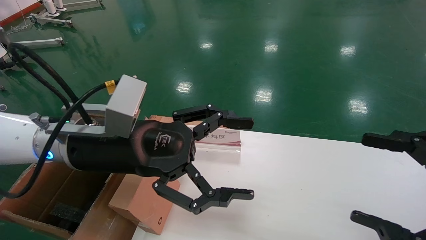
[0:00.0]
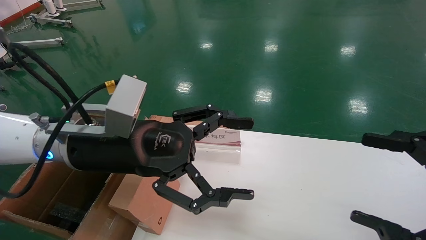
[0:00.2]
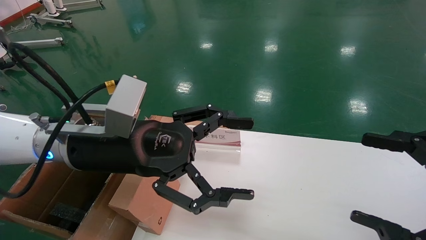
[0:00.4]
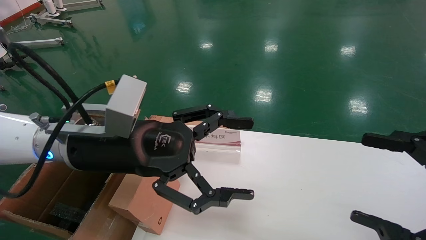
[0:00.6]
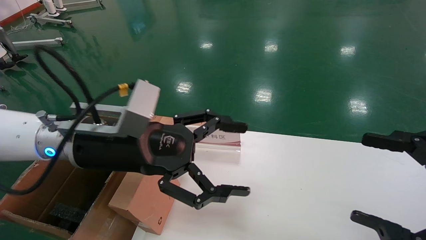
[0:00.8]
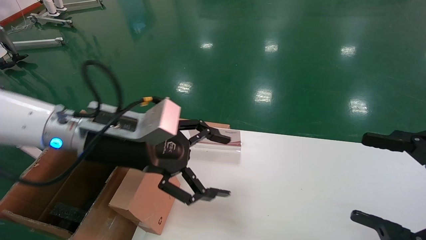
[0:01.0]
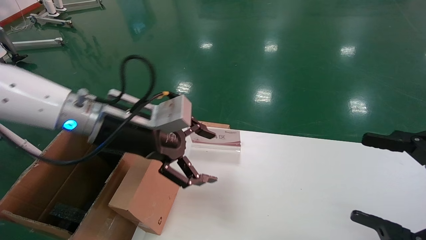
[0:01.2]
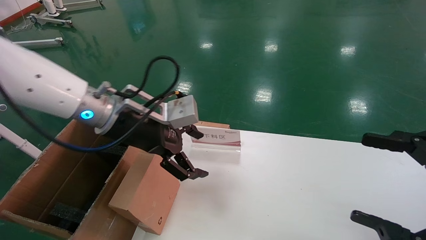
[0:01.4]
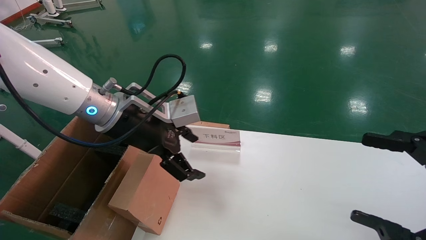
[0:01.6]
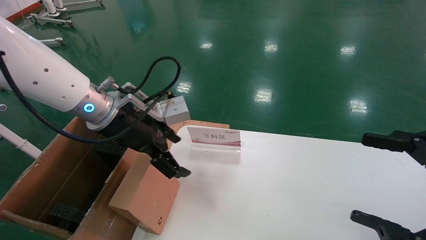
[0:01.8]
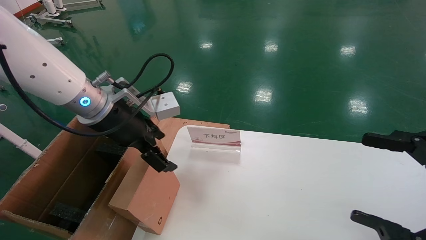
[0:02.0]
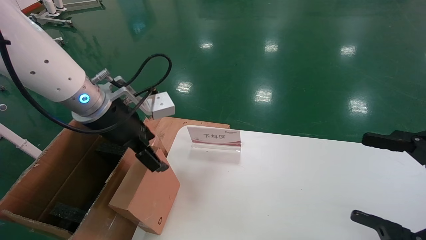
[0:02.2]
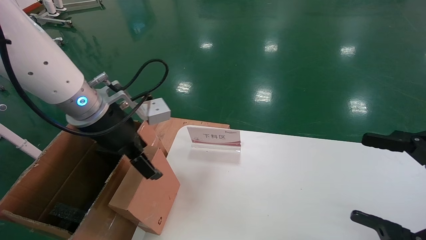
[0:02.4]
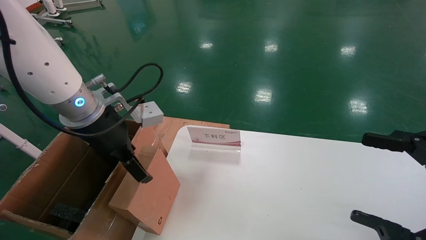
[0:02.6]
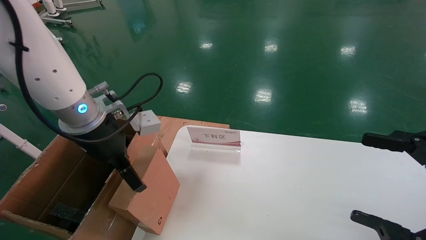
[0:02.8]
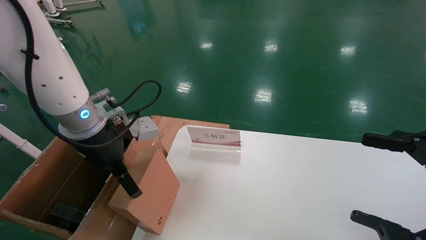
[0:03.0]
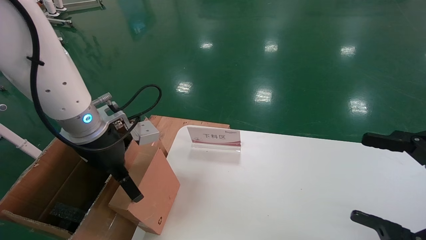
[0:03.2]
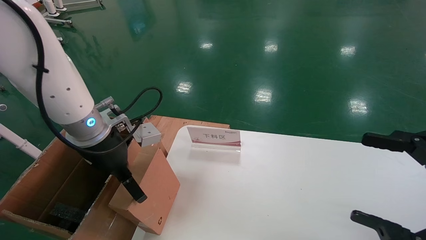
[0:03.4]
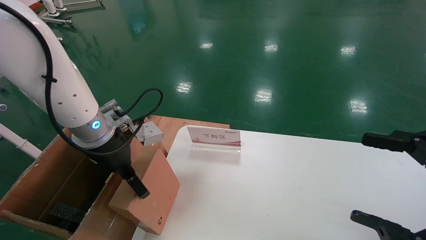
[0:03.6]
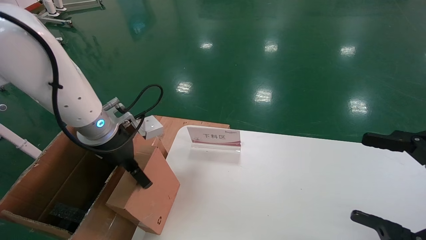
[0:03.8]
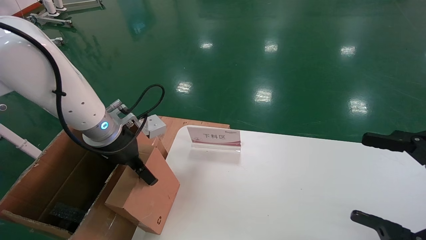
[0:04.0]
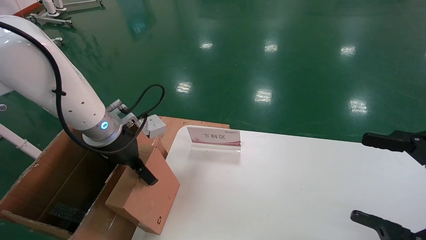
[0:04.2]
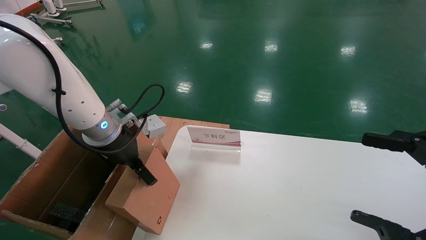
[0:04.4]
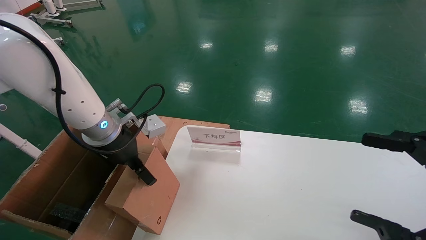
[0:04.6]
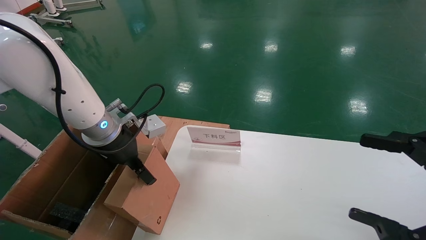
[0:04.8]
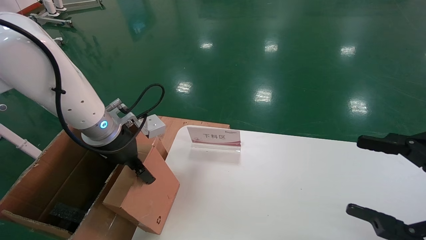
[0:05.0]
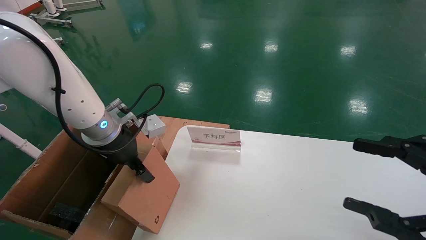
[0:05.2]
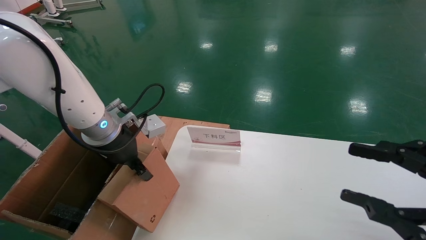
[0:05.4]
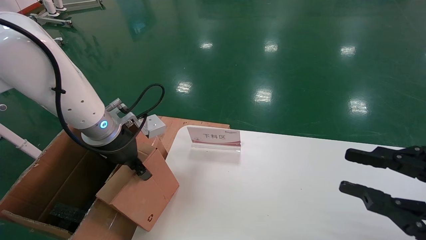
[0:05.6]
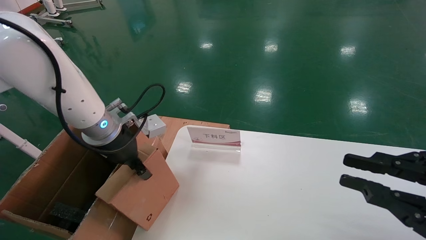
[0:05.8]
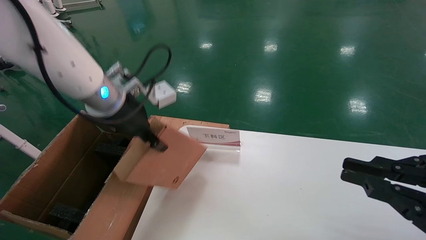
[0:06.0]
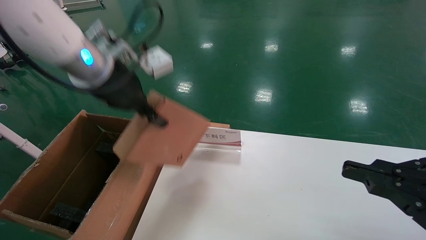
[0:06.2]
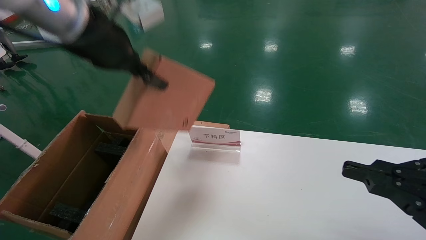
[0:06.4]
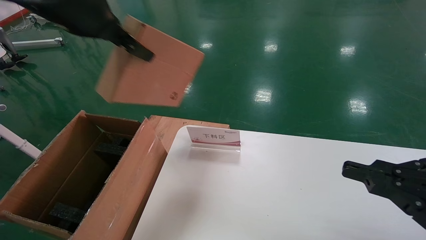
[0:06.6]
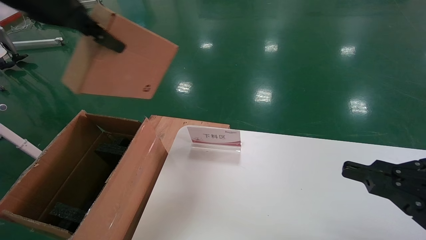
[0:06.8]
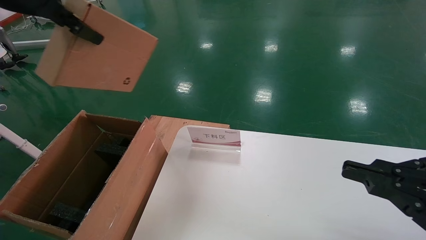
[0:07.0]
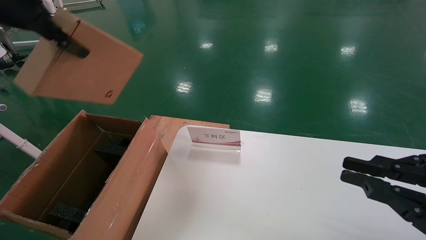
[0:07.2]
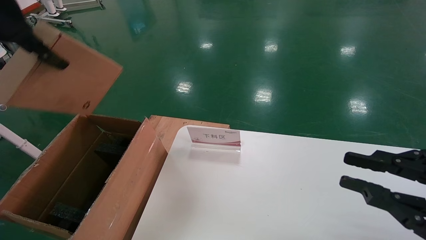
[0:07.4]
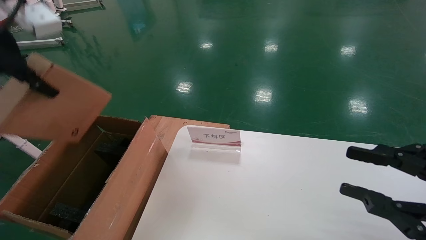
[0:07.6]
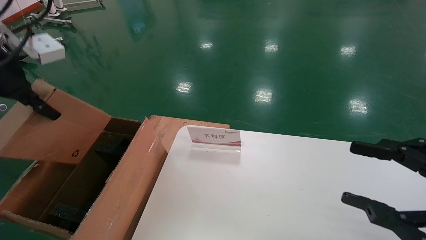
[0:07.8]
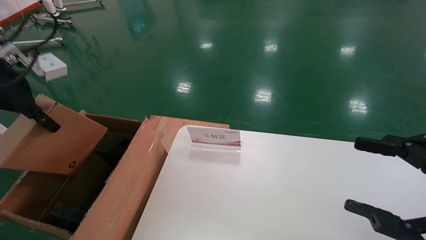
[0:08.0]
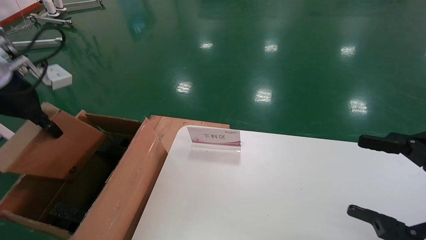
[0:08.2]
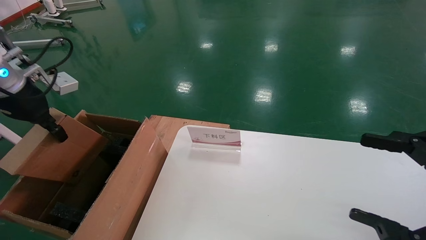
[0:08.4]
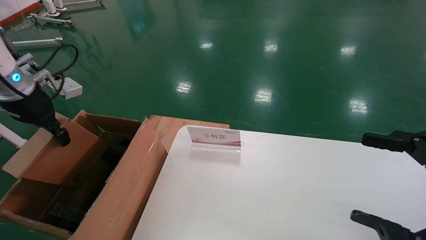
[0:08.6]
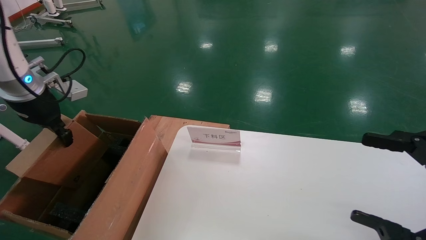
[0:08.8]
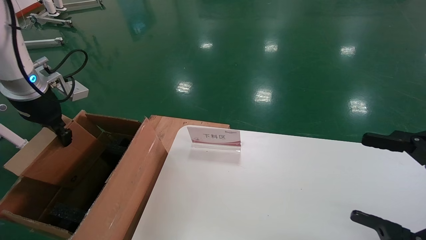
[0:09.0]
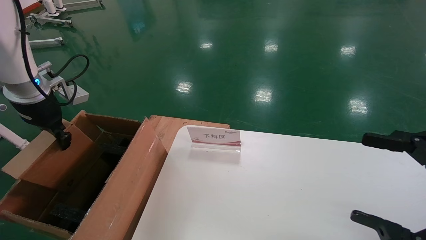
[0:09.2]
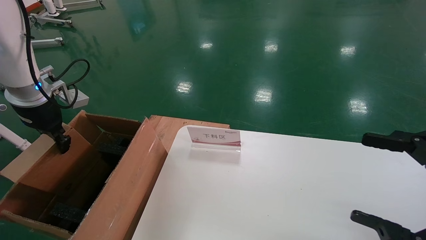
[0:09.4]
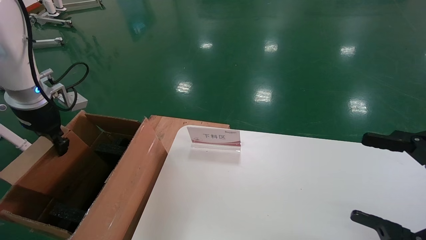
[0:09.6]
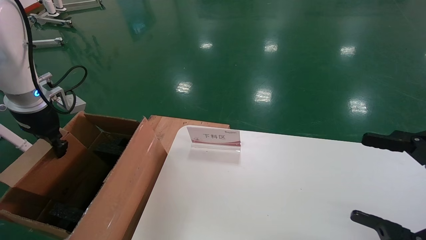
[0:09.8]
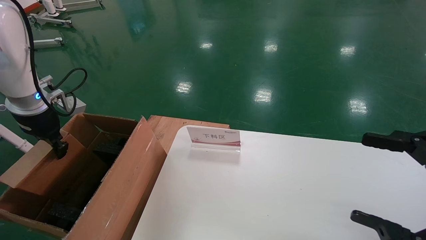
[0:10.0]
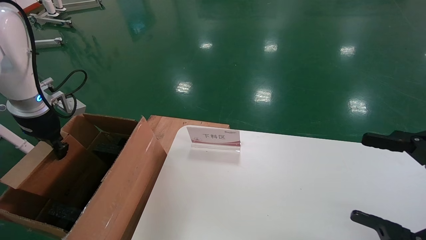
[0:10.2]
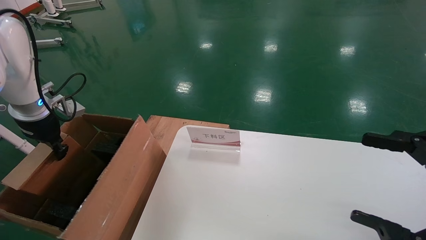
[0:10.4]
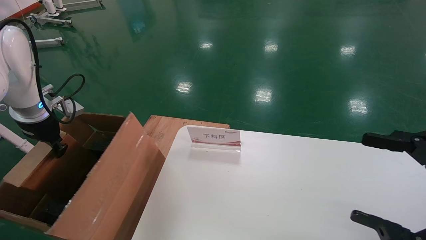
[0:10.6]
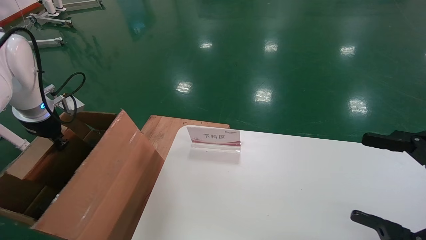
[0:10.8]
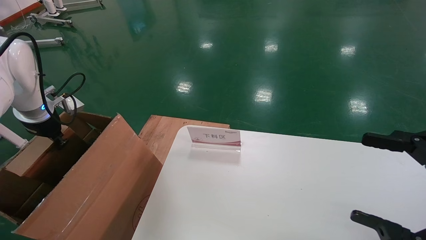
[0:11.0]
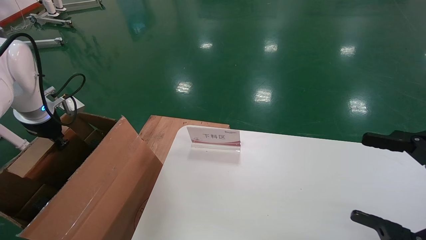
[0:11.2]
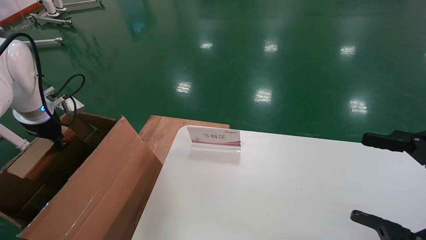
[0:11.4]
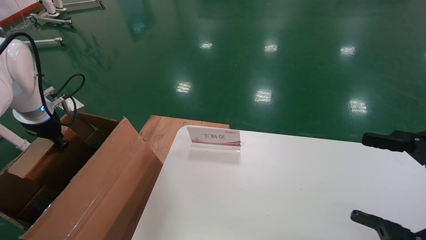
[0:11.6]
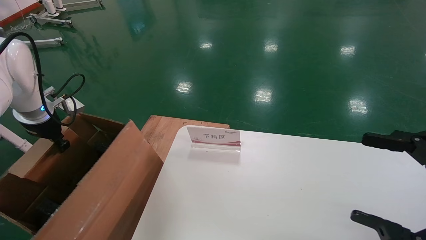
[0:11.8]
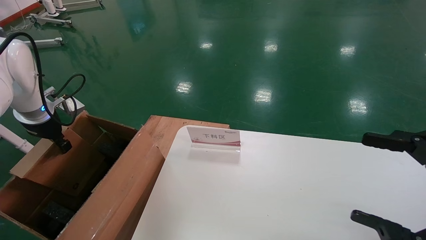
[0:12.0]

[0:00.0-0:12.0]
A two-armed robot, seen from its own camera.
Task of the whole recording: pick up the small cardboard box and load it into the large cardboard box.
Step, 0:01.2 to 0:05.8: Pick up the mouse and power cord box.
0:00.0 to 0:01.6: The left gripper heads forward, covering approximately 5 cm.
0:03.0 to 0:04.4: The left gripper shifts by roughly 5 cm.
0:04.4 to 0:06.0: The left gripper is displaced upward by some 10 cm, and closes, while the right gripper closes up.
0:06.0 to 0:07.6: The left gripper heads upward, to the left and backward, covering about 20 cm.
0:07.6 to 0:09.0: The left gripper goes roughly 20 cm downward, forward and to the left, while the right gripper opens up.
0:09.0 to 0:10.4: The left gripper is displaced downward by about 5 cm.
0:10.4 to 0:12.0: The grippers move only a little.

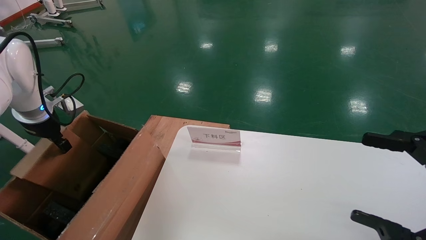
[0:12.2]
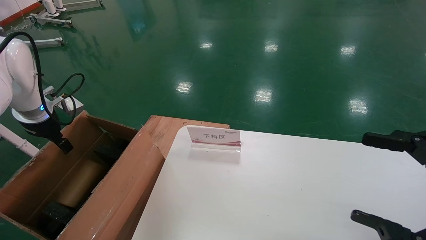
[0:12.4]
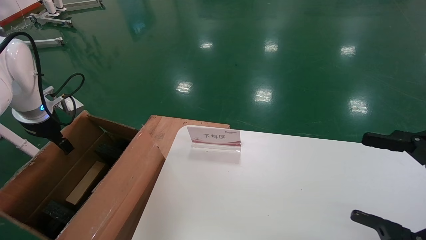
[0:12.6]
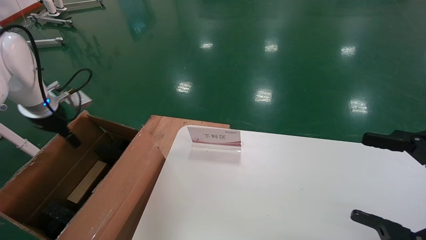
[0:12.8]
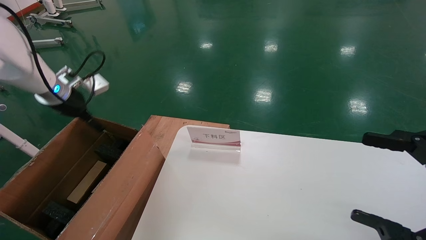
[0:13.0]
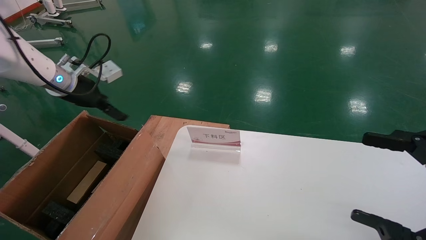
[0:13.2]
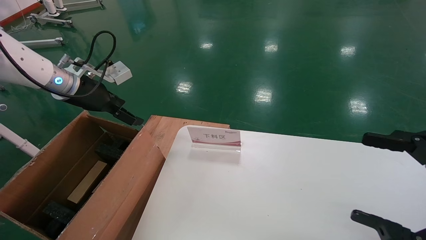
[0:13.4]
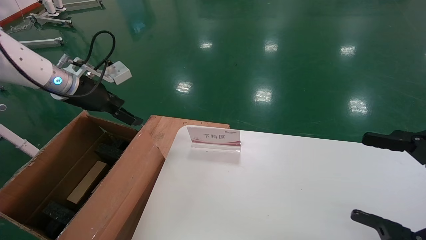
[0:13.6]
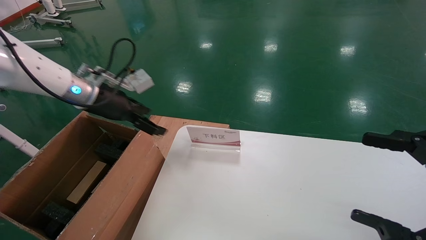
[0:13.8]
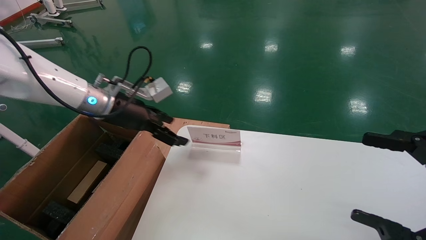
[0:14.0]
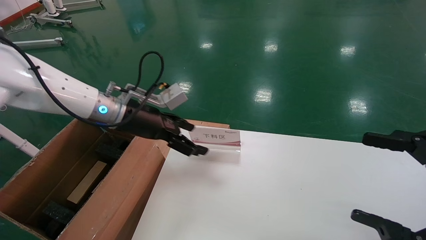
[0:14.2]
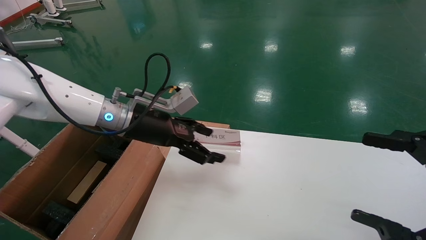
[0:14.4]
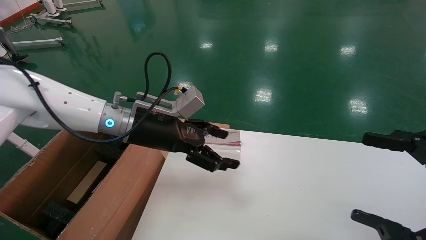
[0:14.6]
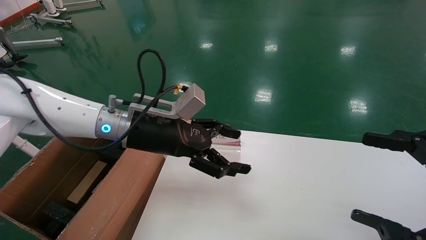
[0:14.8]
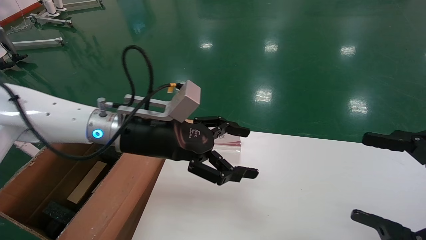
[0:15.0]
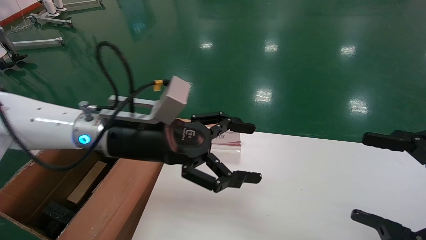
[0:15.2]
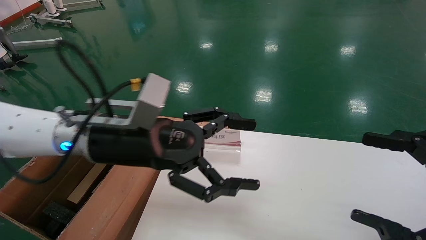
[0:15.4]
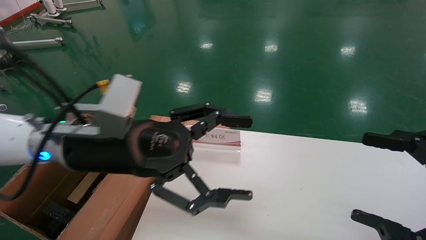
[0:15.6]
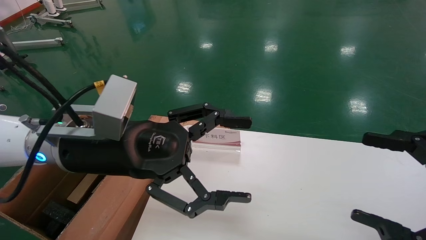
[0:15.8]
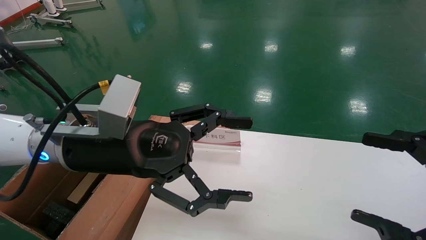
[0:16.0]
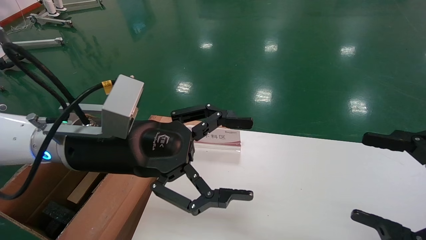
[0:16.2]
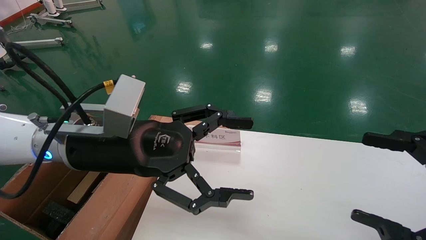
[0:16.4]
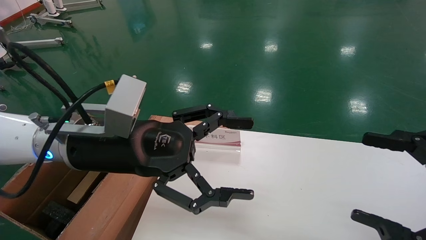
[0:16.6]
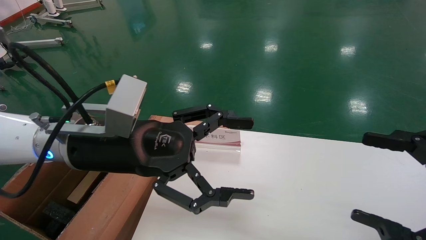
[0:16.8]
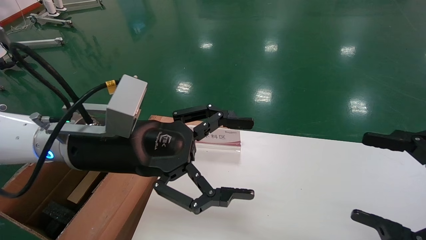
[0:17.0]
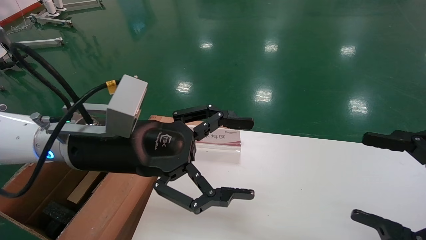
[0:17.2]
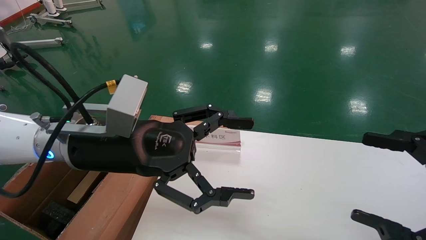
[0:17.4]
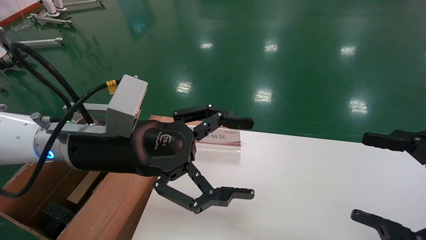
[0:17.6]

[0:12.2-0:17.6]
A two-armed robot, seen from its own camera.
Task of the whole recording: pick up the small cardboard box and load it into the large cardboard box.
0:12.2 to 0:13.6: The left gripper shifts some 15 cm to the right and upward, and opens up.
0:13.6 to 0:15.0: The left gripper shifts approximately 20 cm to the right and backward.
0:15.0 to 0:16.2: The left gripper is displaced backward by some 5 cm.
0:16.2 to 0:17.6: Both grippers stay put.
